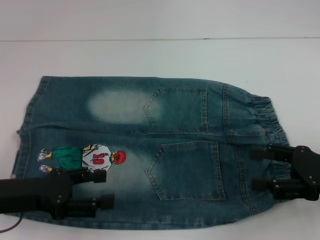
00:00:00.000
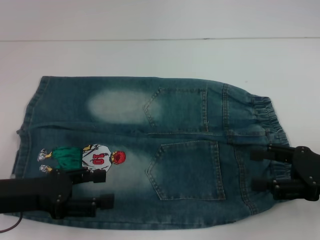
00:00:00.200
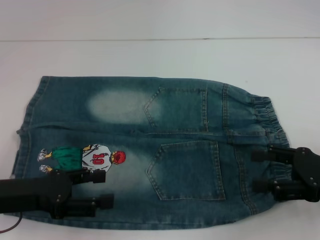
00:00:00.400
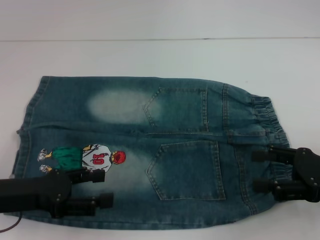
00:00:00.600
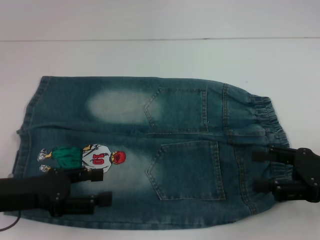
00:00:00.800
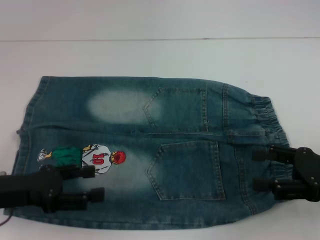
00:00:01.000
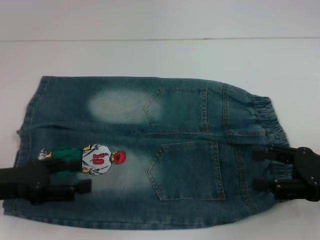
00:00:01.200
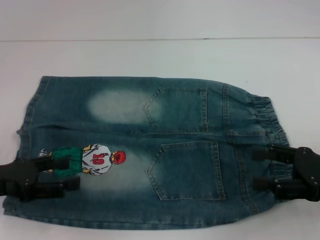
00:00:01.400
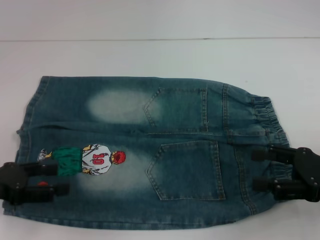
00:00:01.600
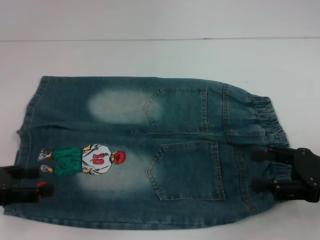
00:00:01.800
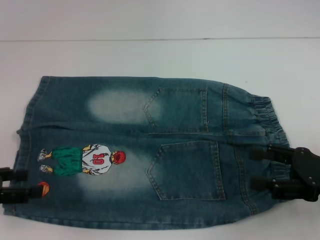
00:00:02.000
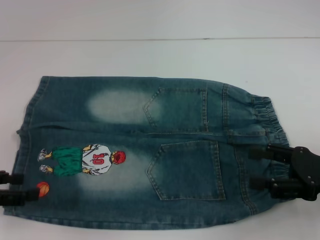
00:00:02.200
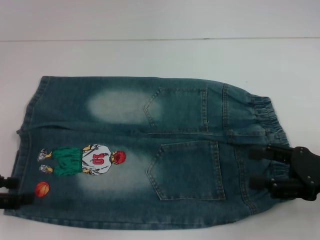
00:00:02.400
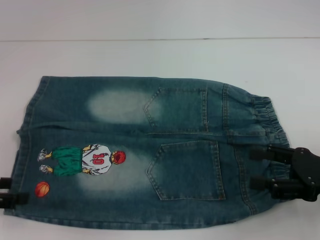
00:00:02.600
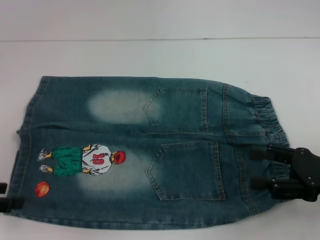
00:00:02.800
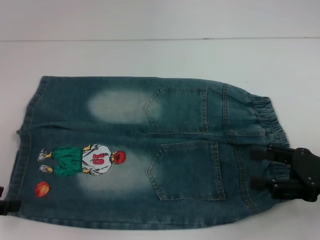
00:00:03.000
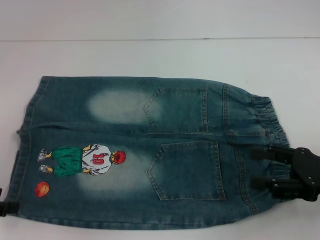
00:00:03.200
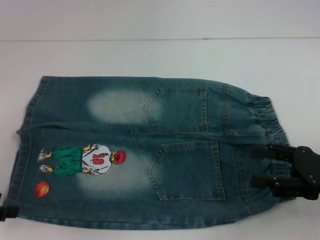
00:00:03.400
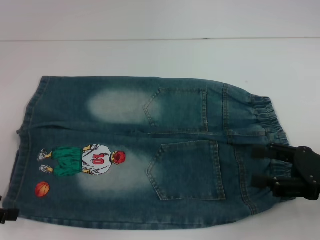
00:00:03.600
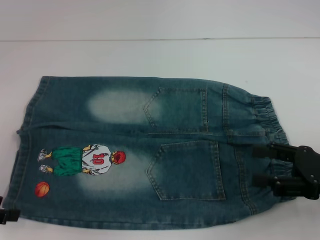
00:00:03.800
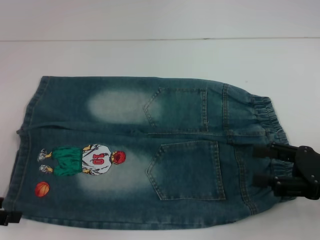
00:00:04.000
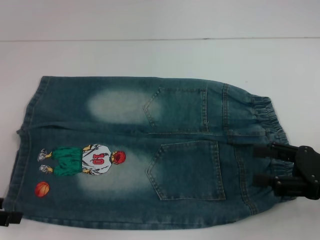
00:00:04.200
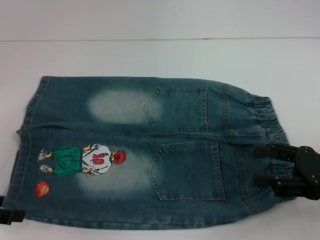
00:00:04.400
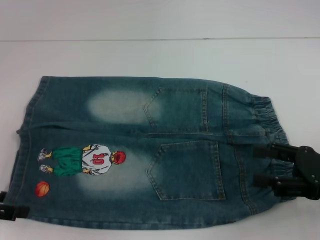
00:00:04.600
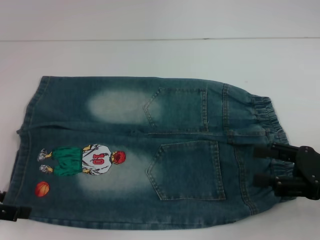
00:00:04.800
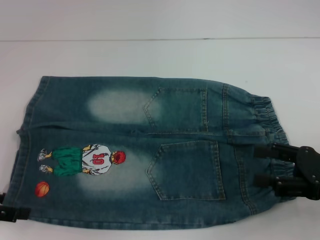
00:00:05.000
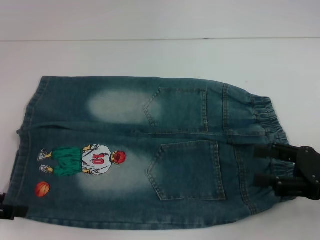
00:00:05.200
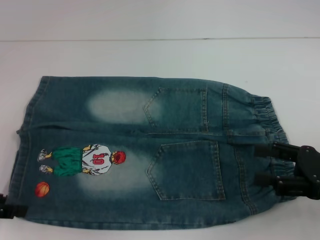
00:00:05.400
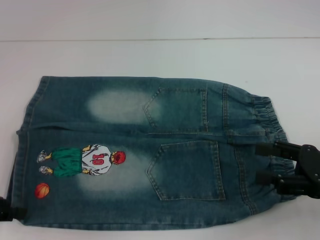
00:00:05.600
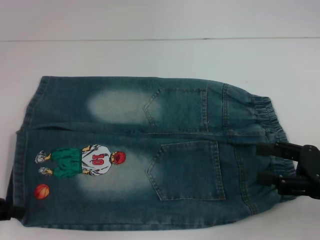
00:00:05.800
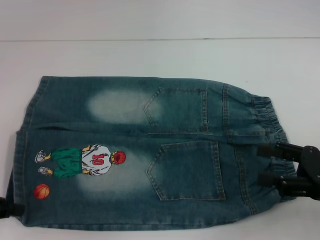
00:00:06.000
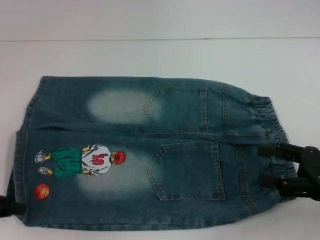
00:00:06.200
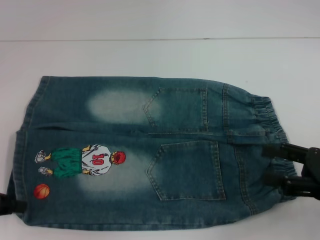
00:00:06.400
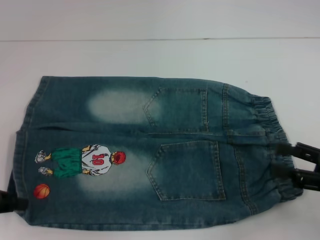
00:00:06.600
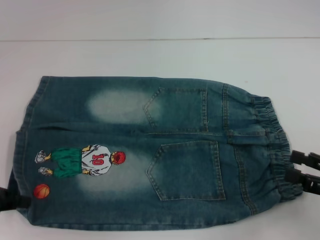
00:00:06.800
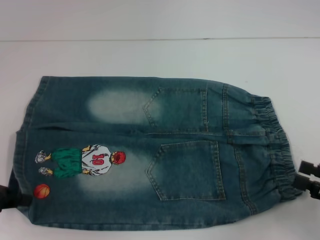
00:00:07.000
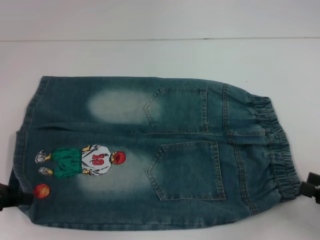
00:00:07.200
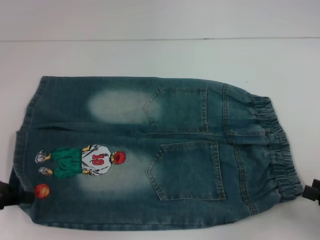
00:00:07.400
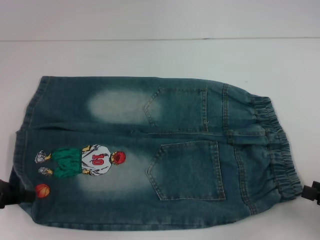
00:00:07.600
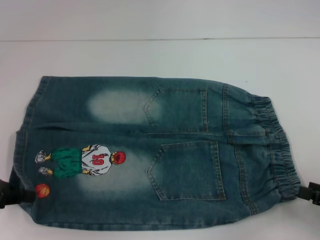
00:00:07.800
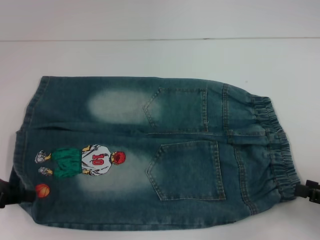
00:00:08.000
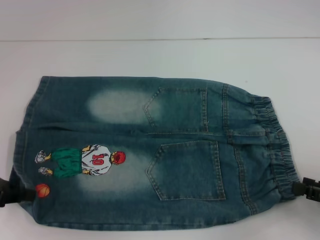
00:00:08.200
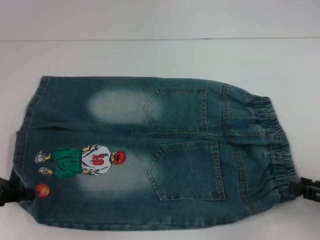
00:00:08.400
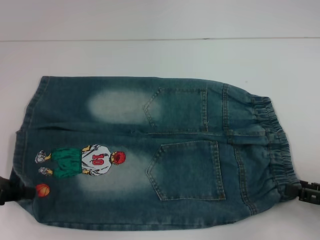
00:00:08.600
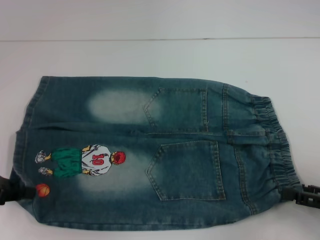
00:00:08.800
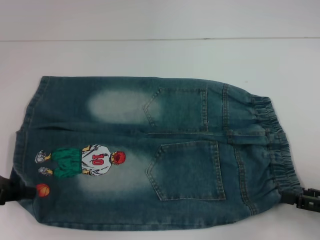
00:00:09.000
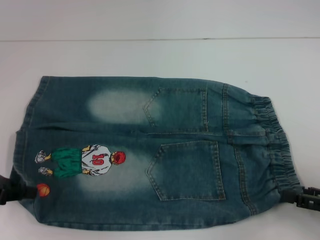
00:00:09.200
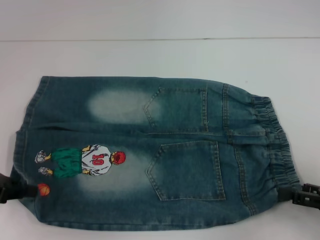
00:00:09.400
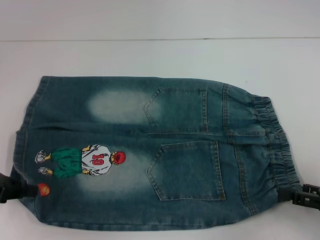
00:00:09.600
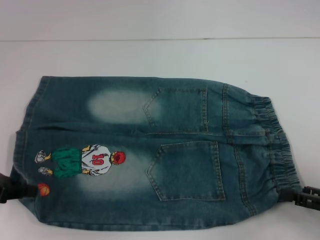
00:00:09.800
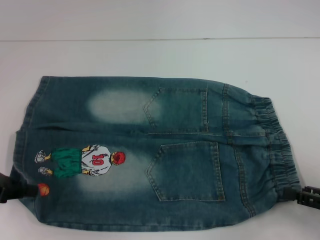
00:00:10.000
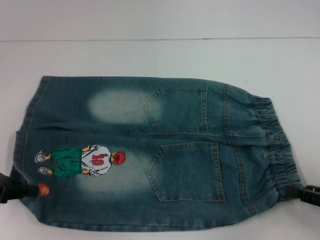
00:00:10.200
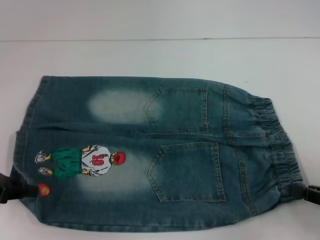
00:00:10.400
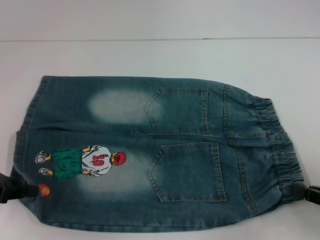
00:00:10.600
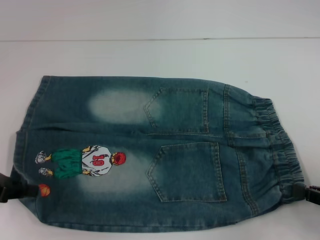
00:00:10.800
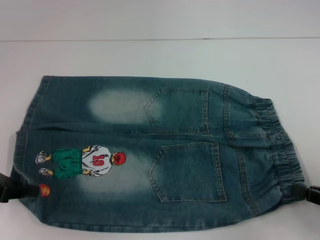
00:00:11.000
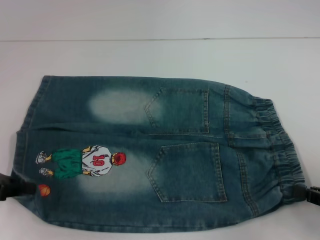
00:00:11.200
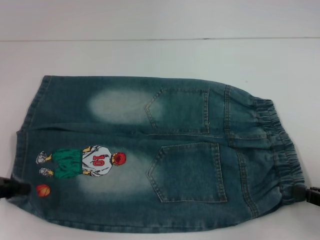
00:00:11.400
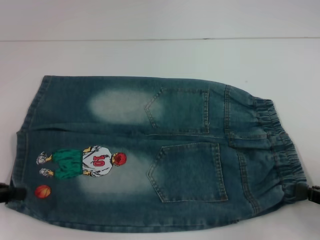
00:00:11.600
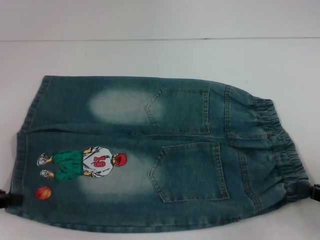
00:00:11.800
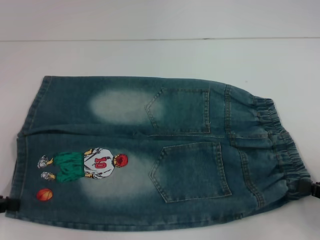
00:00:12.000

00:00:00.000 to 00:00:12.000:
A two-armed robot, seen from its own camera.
Step, 00:00:00.000 to 00:00:05.600: Grab the lower left pant leg with your left hand.
Step, 00:00:05.800 to 00:00:10.200: Hold the lower right waistband with your right hand.
00:00:00.000 to 00:00:01.600: The left gripper shifts roughly 5 cm to the left.
00:00:03.000 to 00:00:04.400: The grippers move only a little.
00:00:04.400 to 00:00:06.000: The left gripper closes its fingers.
00:00:06.000 to 00:00:07.600: The right gripper travels to the right and backward by some 10 cm.
00:00:07.600 to 00:00:09.000: The grippers move only a little.
00:00:09.000 to 00:00:10.400: The right gripper closes its fingers.
00:00:10.400 to 00:00:12.000: The grippers move only a little.

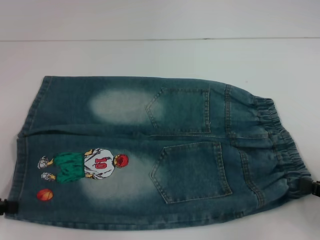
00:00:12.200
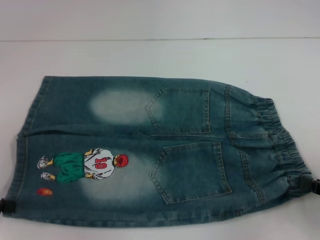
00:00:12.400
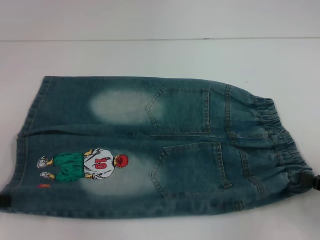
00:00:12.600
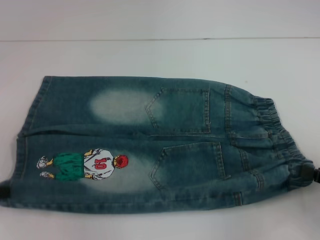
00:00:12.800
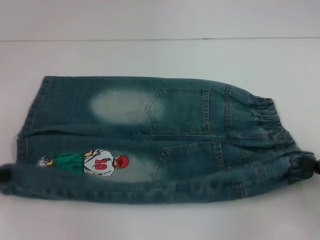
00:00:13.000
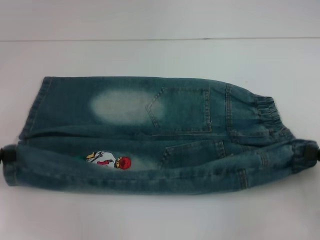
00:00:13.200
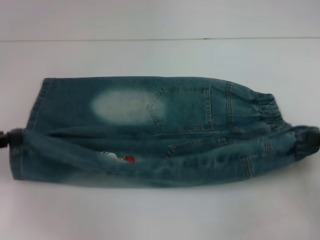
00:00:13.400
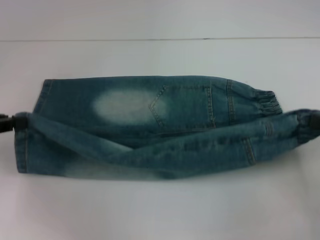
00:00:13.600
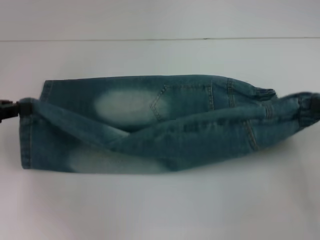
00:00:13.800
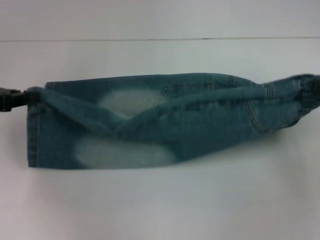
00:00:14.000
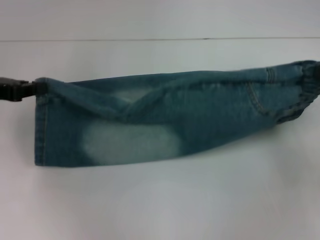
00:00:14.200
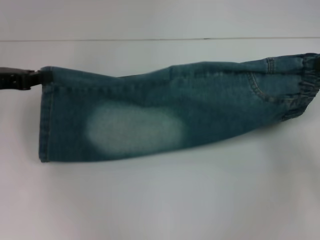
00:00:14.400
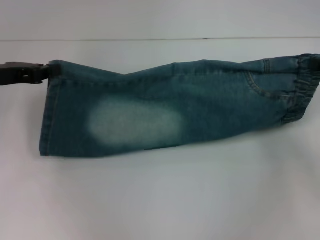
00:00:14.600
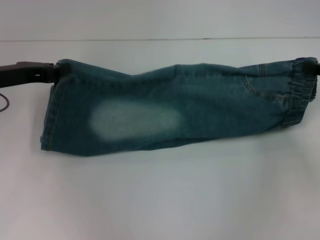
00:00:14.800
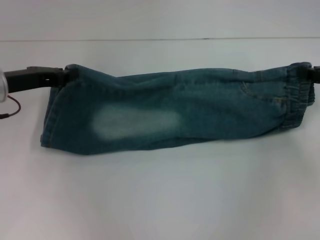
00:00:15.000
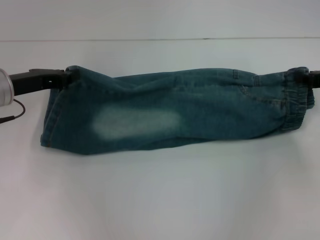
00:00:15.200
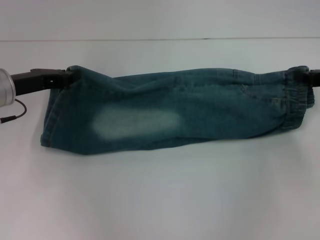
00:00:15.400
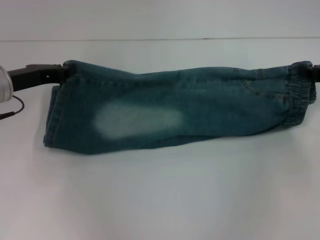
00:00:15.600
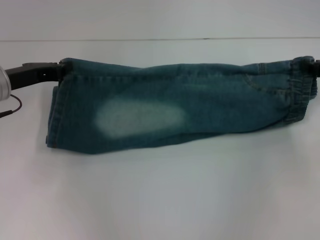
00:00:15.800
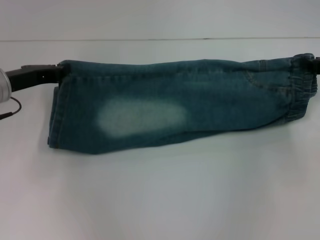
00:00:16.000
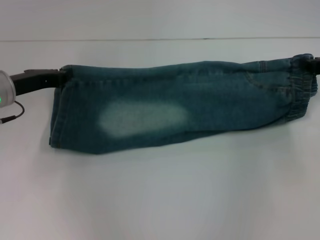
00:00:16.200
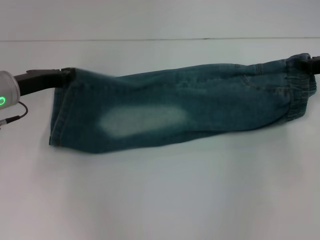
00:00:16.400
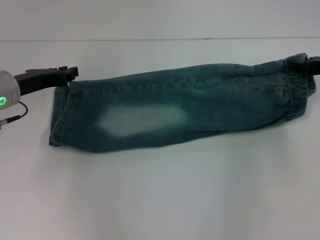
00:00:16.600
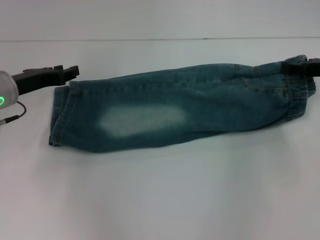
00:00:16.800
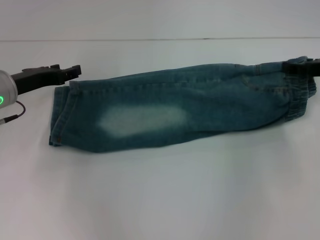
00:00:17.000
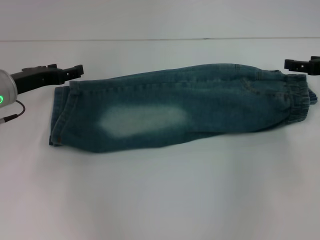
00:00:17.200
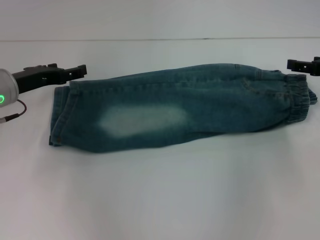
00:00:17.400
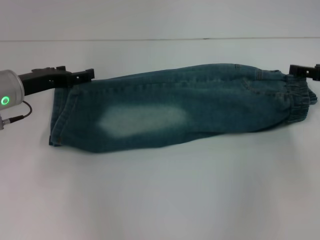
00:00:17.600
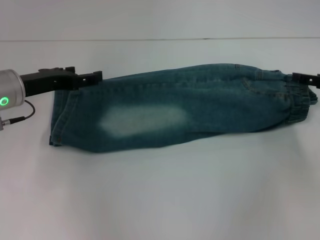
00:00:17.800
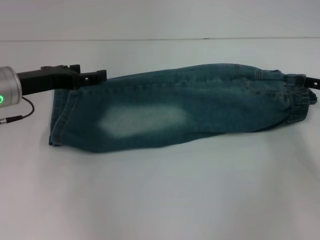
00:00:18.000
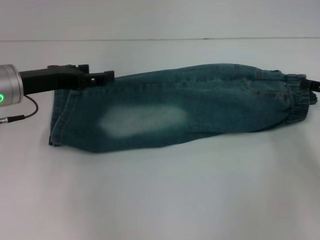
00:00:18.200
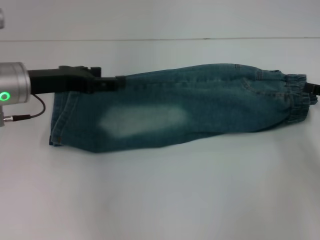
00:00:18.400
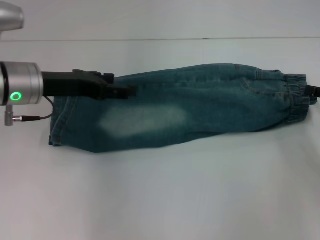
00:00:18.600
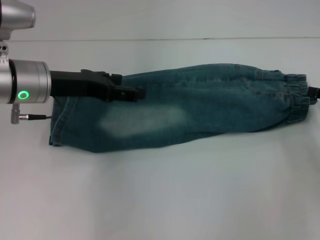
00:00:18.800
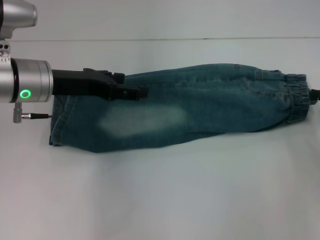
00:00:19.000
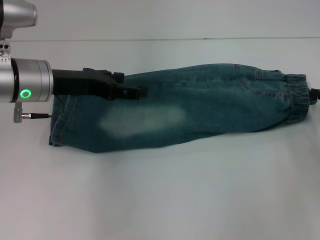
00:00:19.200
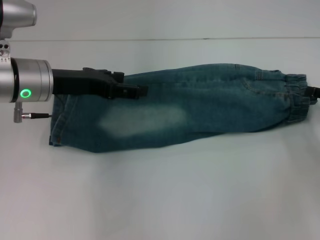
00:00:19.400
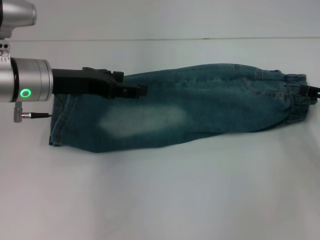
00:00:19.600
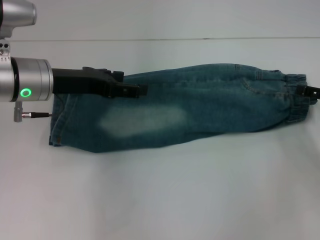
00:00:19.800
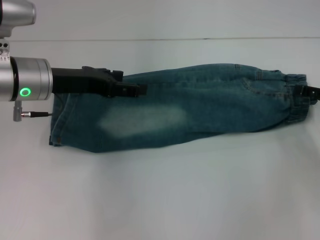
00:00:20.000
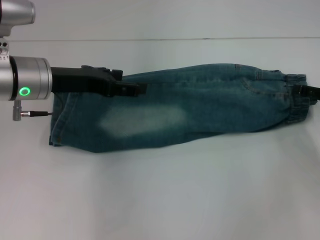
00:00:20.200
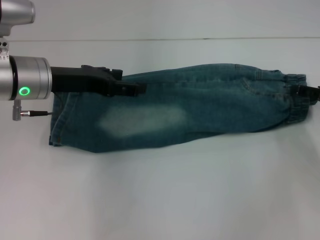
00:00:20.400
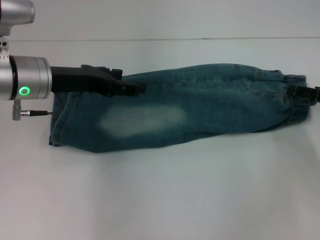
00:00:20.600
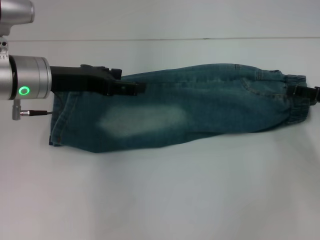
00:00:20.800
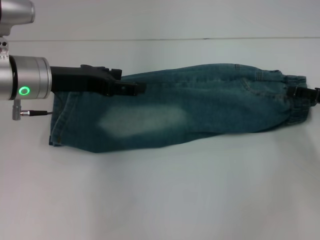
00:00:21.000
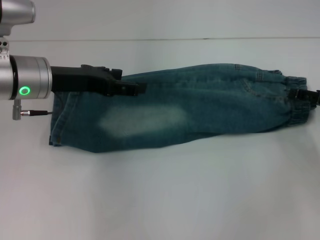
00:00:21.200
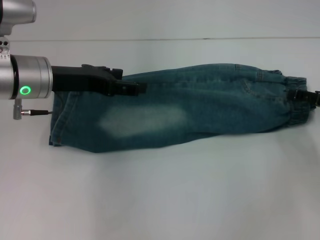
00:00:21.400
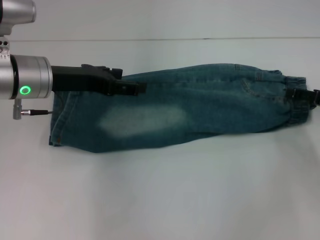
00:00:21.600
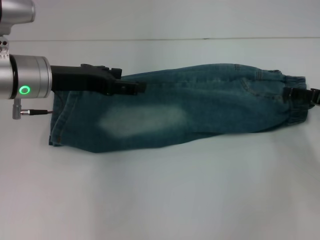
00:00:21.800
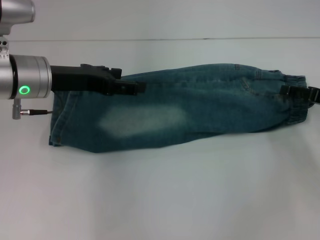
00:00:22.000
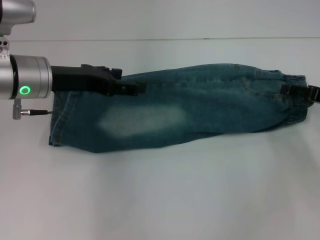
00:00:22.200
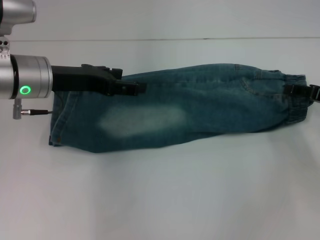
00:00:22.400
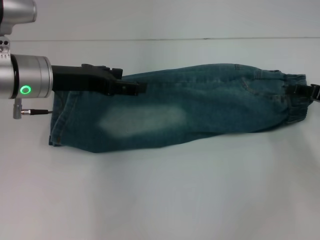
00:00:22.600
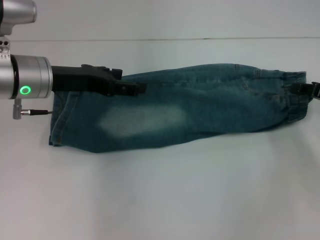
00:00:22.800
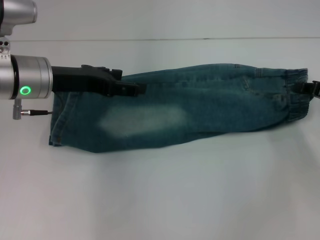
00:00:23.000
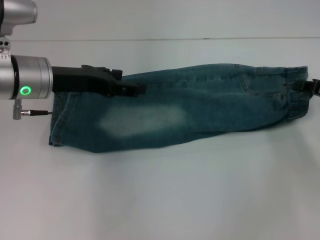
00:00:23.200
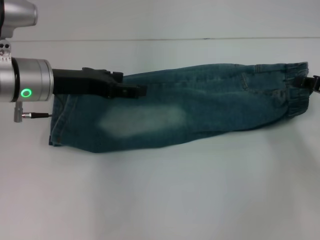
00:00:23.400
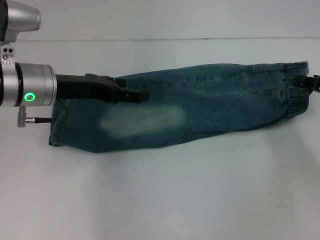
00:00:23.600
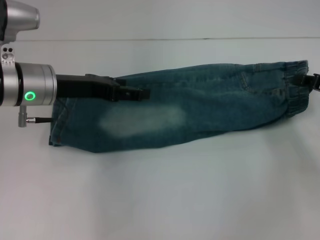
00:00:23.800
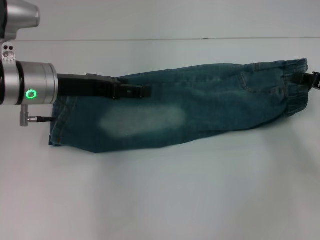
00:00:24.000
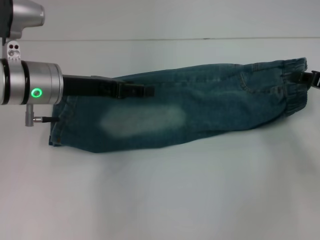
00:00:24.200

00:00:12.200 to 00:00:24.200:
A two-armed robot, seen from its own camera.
Step, 00:00:12.200 to 00:00:16.400: Fold upward with your left hand.
Step, 00:00:16.600 to 00:00:17.000: Fold upward with your right hand.
Step, 00:00:17.200 to 00:00:22.600: Grab the waistband with your right hand.
00:00:12.200 to 00:00:13.800: The two grippers go roughly 10 cm forward and upward.
00:00:13.800 to 00:00:15.200: The left gripper heads to the right and forward, covering about 10 cm; the right gripper is displaced forward by about 10 cm.
00:00:15.200 to 00:00:16.600: The grippers stay close to where they were, moving slightly.
00:00:16.600 to 00:00:18.200: The right gripper shifts about 5 cm backward, and opens its fingers; the left gripper opens up.
00:00:18.200 to 00:00:21.200: The grippers move only a little.
00:00:21.200 to 00:00:22.600: The two grippers keep their place.
00:00:22.600 to 00:00:24.200: The right gripper closes.
